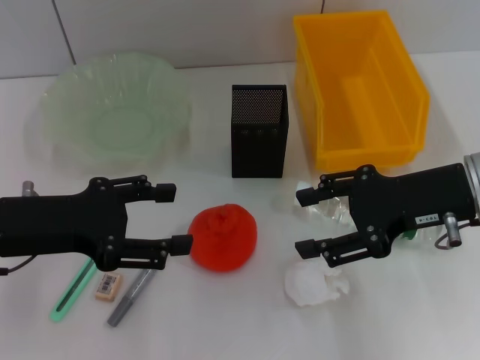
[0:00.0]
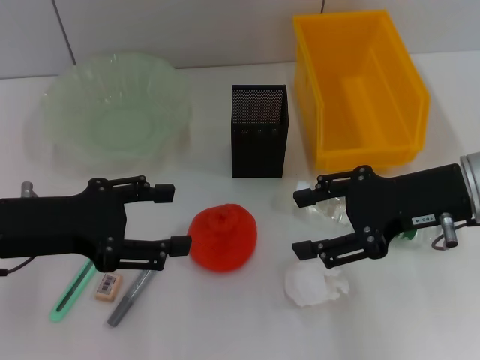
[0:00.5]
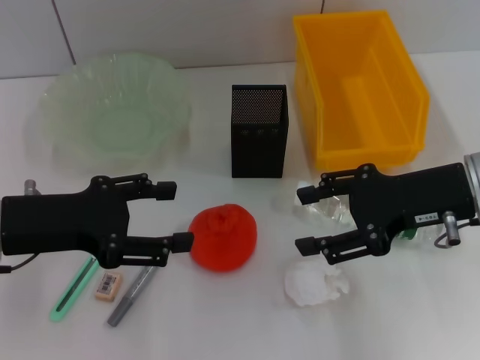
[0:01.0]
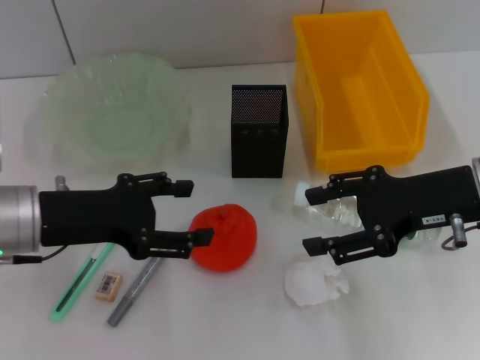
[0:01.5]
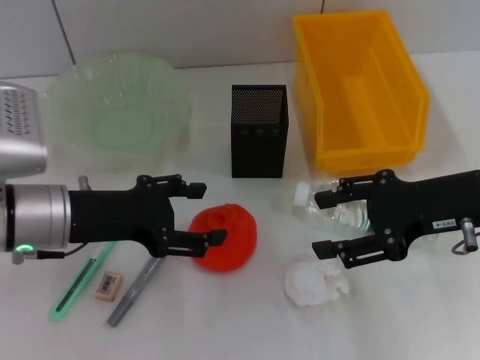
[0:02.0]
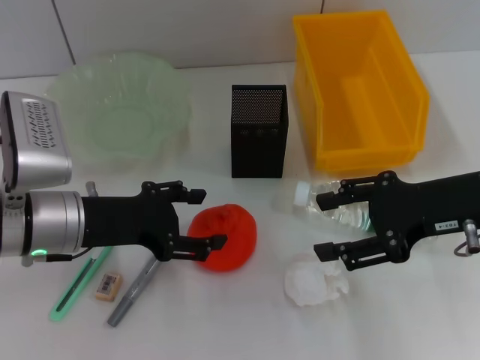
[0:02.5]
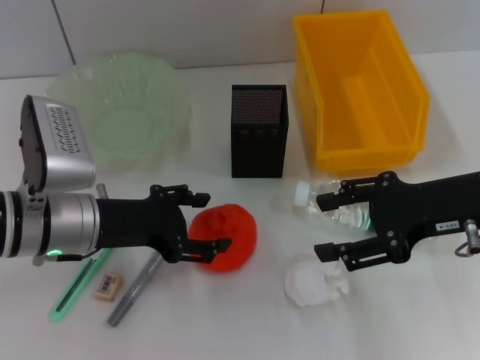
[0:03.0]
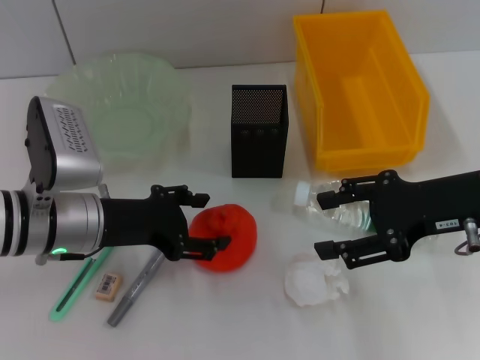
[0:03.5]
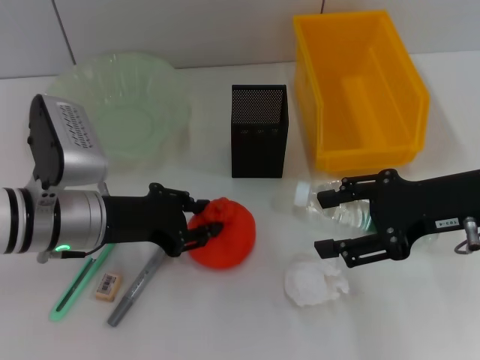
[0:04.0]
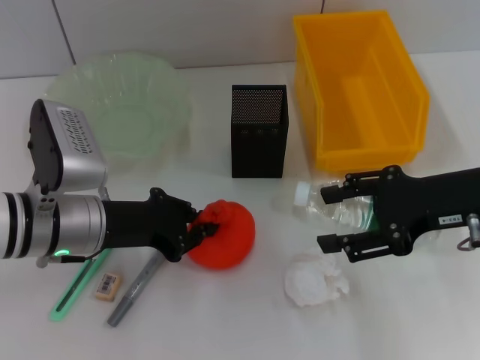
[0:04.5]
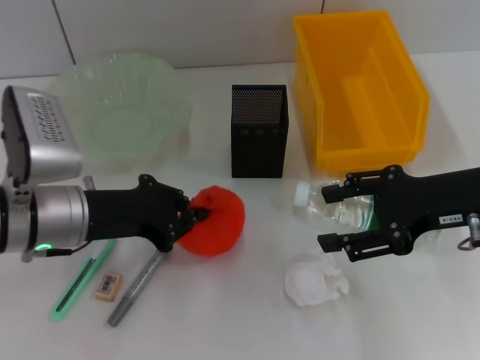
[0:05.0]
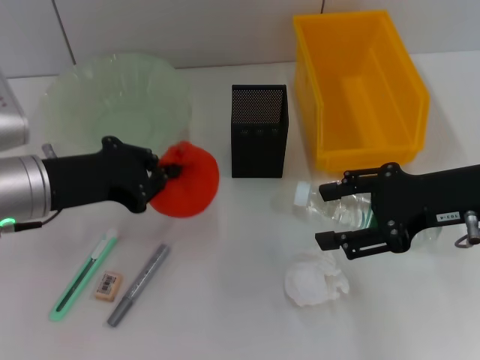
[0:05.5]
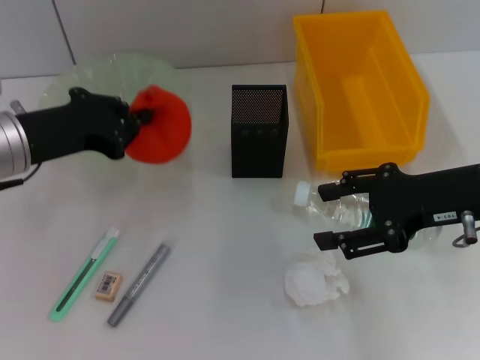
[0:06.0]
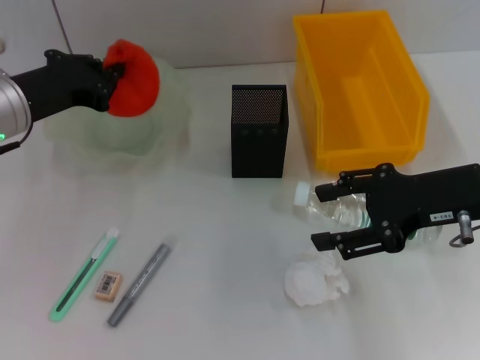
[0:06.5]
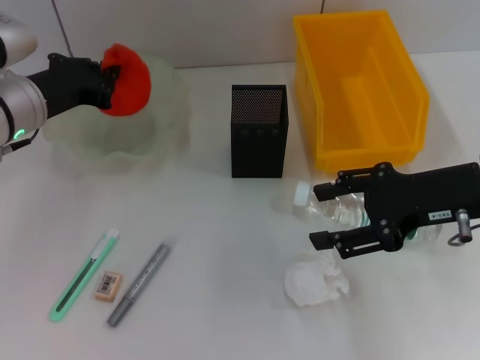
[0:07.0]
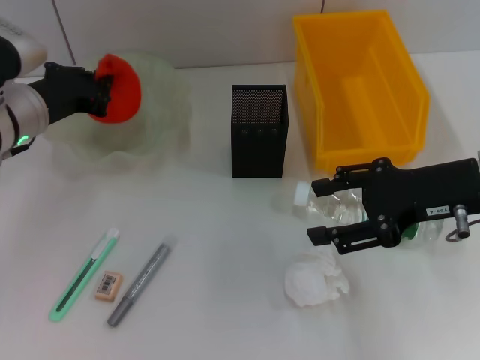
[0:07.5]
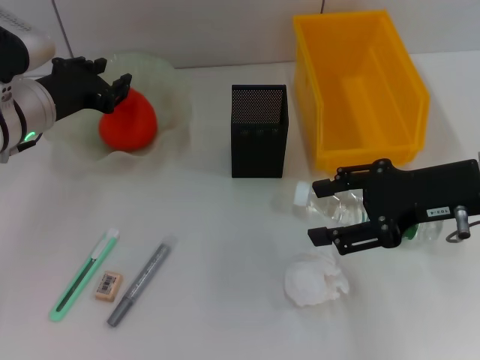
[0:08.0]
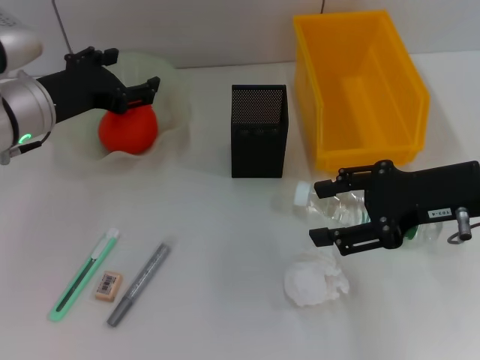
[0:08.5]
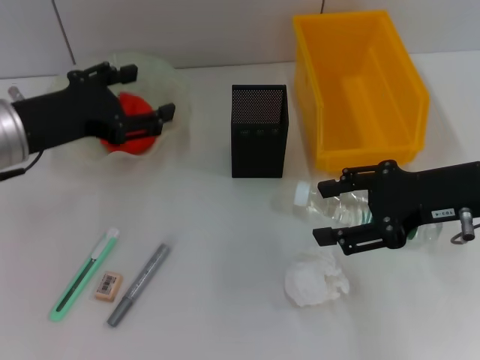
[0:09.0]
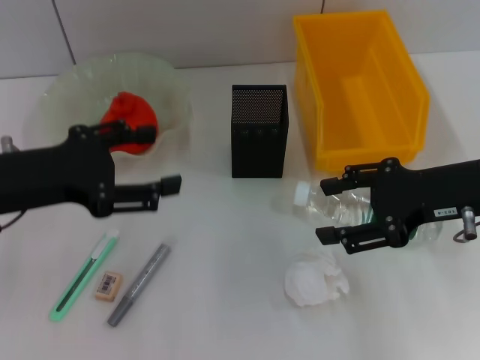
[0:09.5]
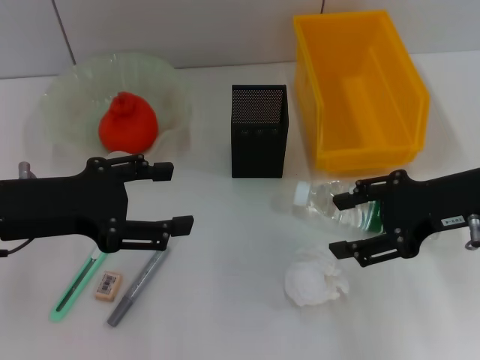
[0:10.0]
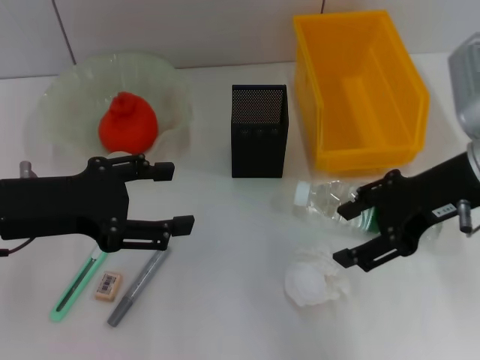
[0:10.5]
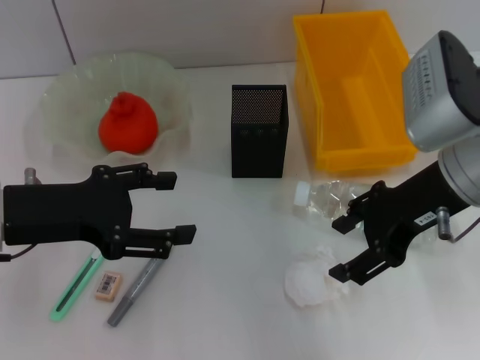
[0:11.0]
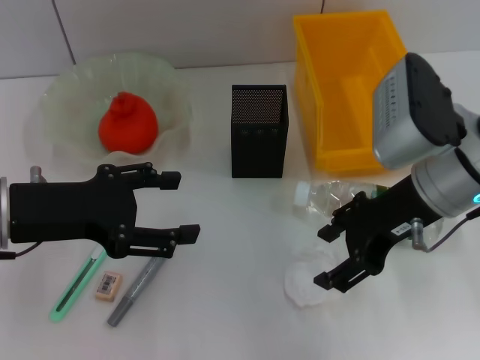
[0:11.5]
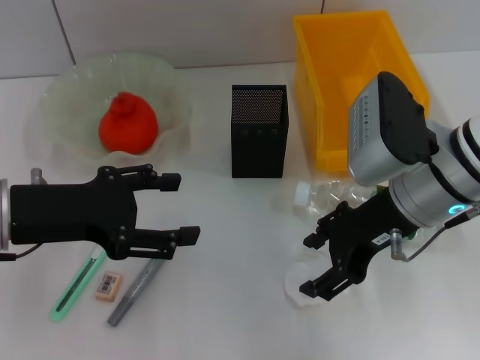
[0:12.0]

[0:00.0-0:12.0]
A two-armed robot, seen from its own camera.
Step, 0:00.0 to 0:04.5: Grab the orange with the left hand.
Step, 0:05.0 to 0:08.0: Place the orange into the fruit bowl with the left hand.
0:00.0 to 0:02.0: The left gripper changes place by approximately 5 cm.
0:02.0 to 0:04.0: The grippers make only small movements.
0:04.0 to 0:06.0: The left gripper shifts approximately 5 cm upward, and closes up.
0:06.0 to 0:08.0: The left gripper moves forward, about 5 cm.
0:08.0 to 0:10.0: The left gripper is displaced backward by roughly 10 cm, and opens its fingers.
0:10.0 to 0:12.0: The right gripper travels to the left by some 10 cm.

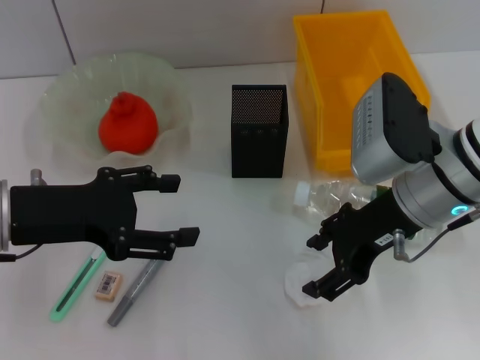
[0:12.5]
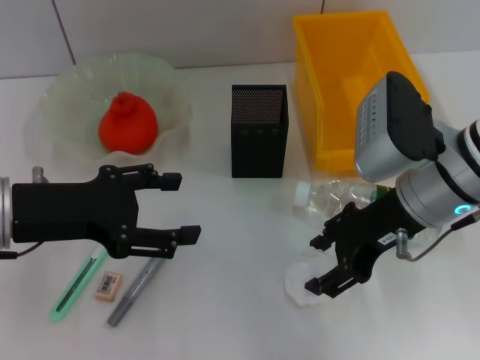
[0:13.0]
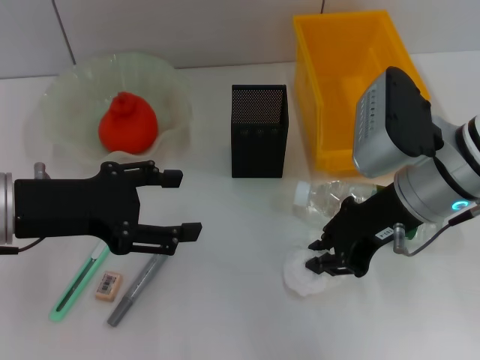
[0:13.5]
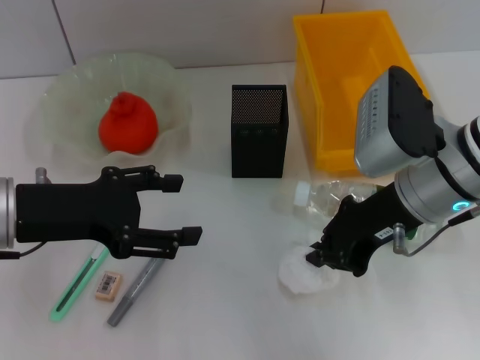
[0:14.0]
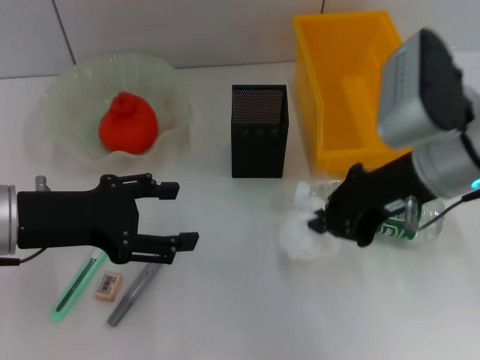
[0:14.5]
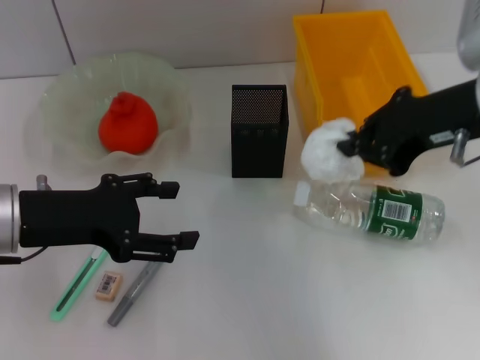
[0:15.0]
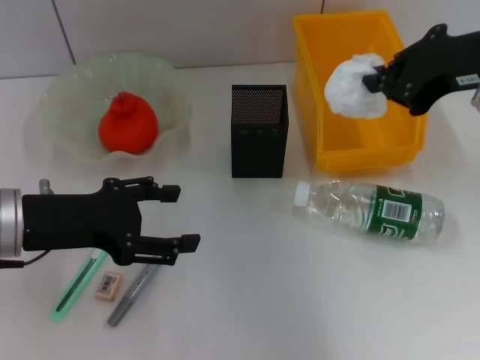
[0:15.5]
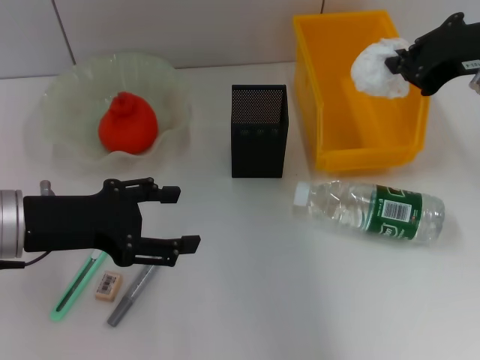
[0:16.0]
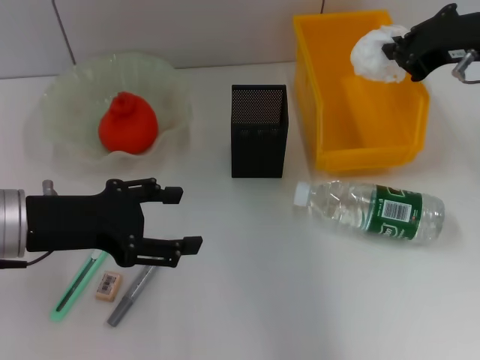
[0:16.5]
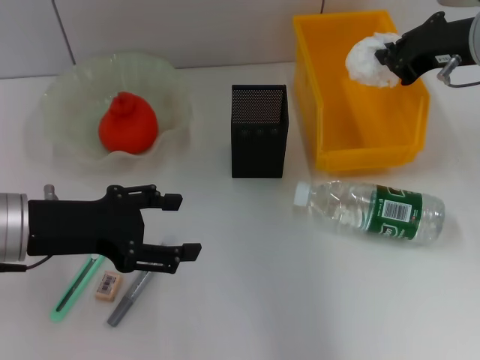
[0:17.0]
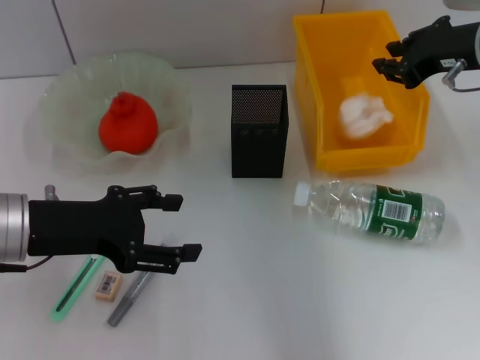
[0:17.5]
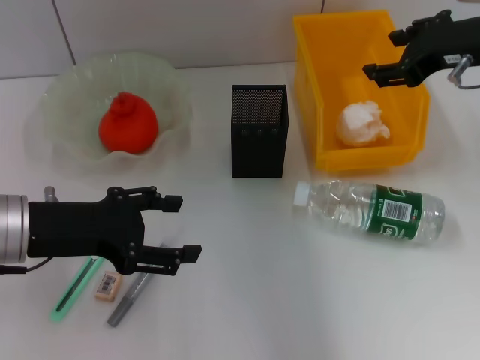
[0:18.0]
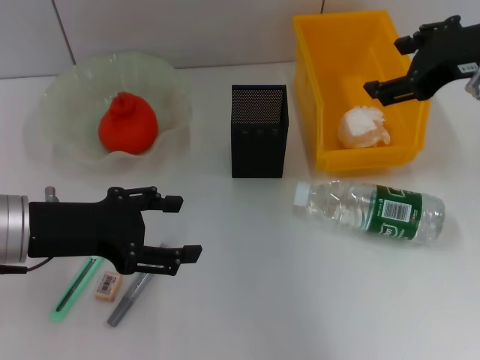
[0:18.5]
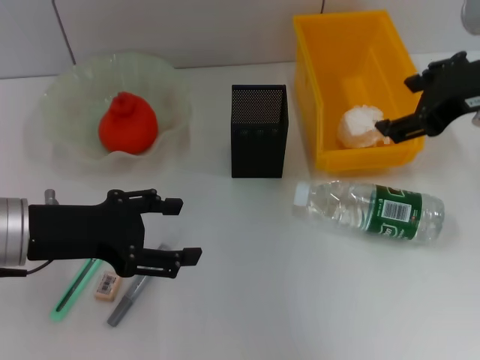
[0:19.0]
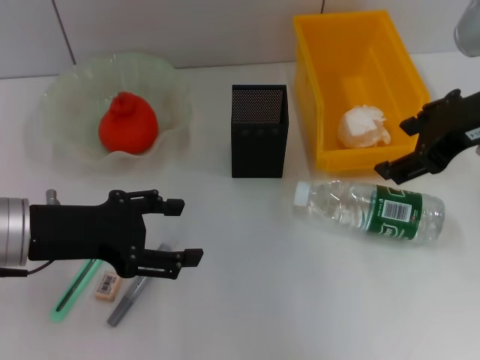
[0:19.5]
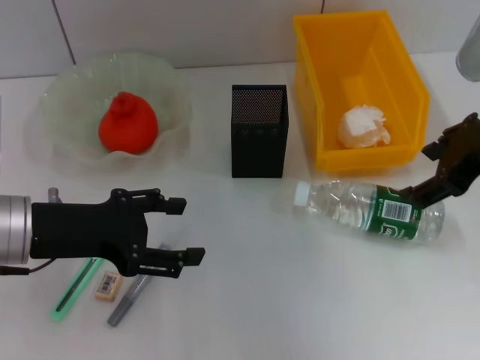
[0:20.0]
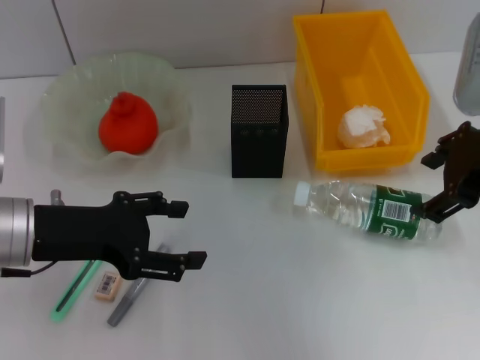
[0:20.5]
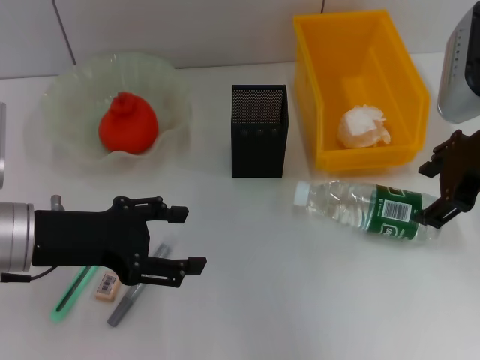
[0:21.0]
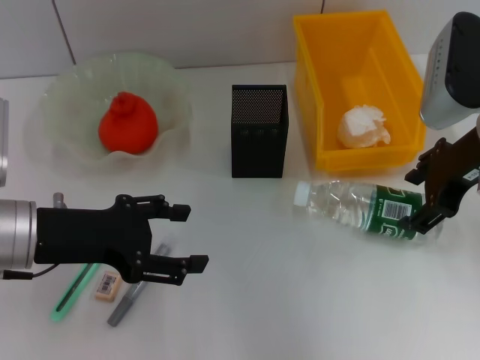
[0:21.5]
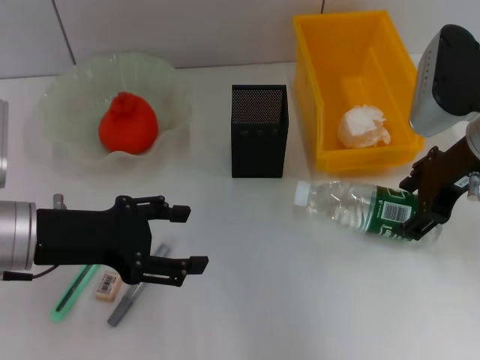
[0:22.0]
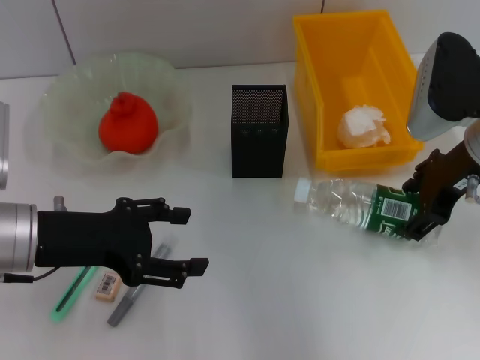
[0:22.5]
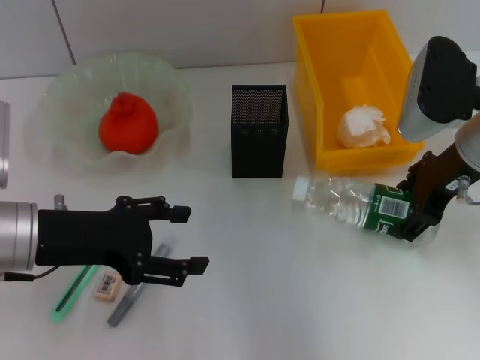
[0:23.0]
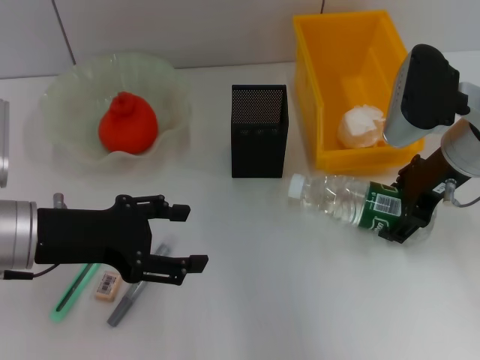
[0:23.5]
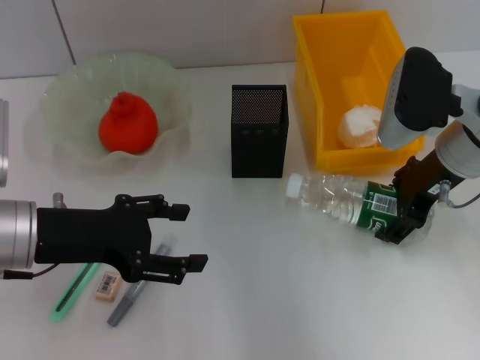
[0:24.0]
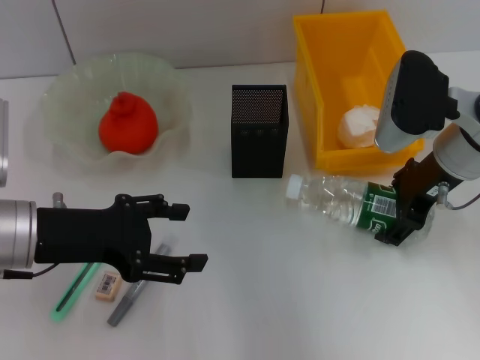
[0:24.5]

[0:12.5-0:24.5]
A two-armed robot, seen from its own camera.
Step, 0:14.5 to 0:17.5: Place the paper ball into the trash can with the right hand.
0:12.5 to 0:14.5: The right gripper closes.
0:14.5 to 0:16.5: The right gripper shifts approximately 10 cm to the right and forward.
0:16.5 to 0:18.5: The right gripper opens its fingers.
0:20.5 to 0:22.5: The right gripper moves downward, approximately 5 cm.
0:22.5 to 0:24.5: The grippers make only small movements.

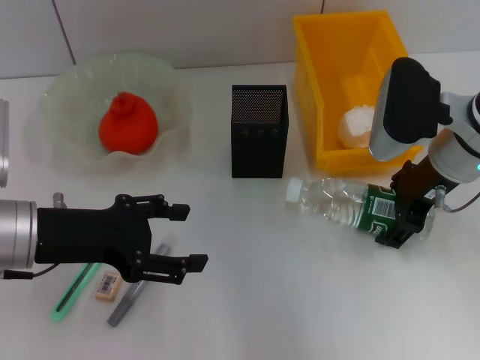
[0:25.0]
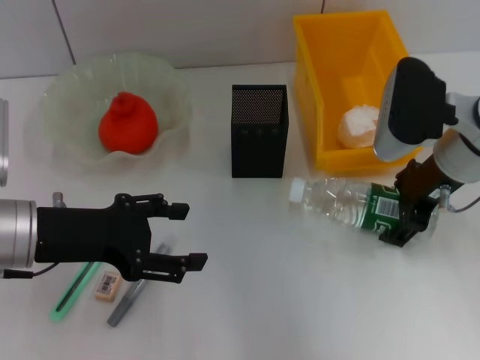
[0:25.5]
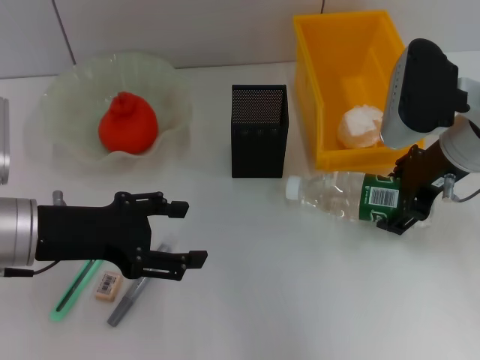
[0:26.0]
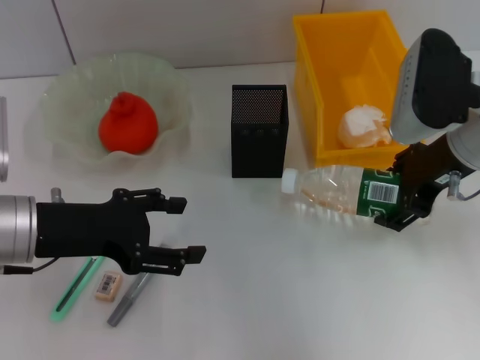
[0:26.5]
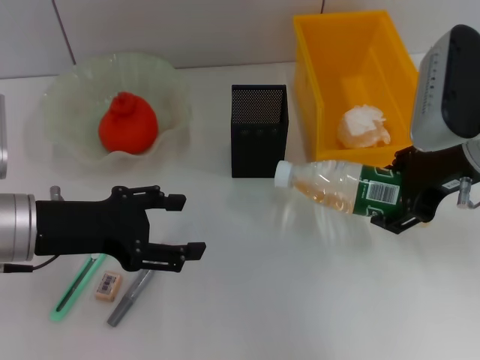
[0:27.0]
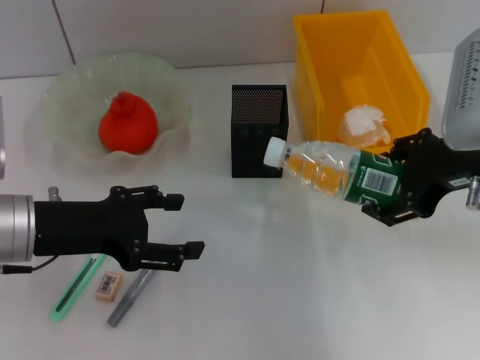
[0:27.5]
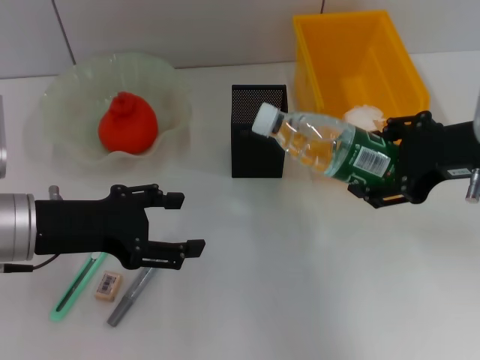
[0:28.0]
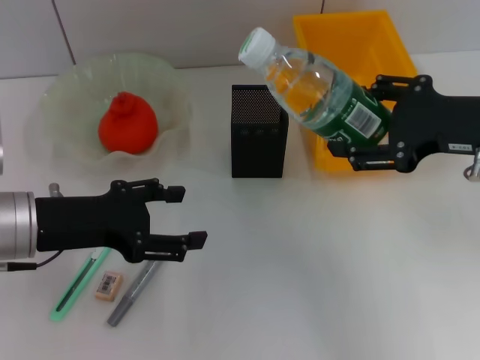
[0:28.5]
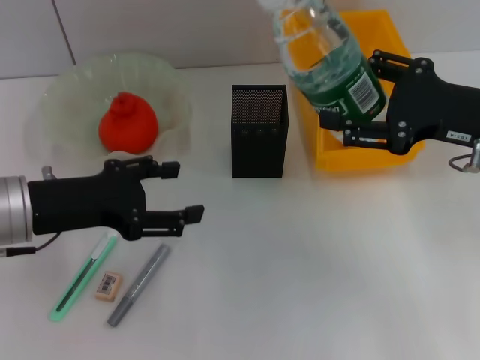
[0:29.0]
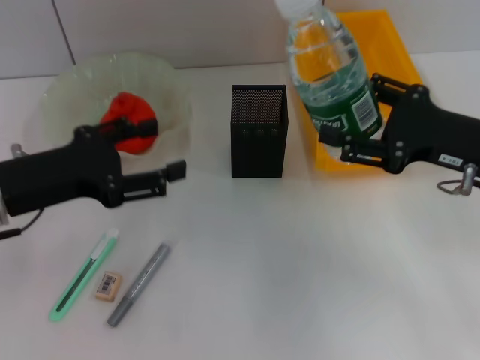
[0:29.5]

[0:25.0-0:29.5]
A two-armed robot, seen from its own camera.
0:25.0 to 0:27.0: The right gripper ends up approximately 5 cm from where it was.
0:27.0 to 0:29.5: The right gripper heads downward, covering some 5 cm.
